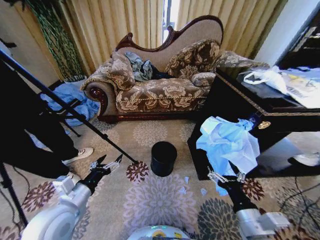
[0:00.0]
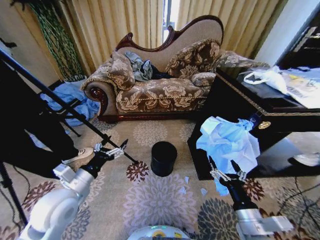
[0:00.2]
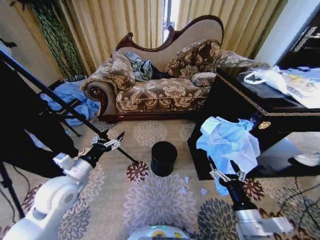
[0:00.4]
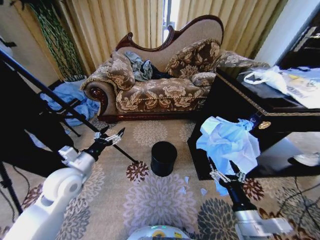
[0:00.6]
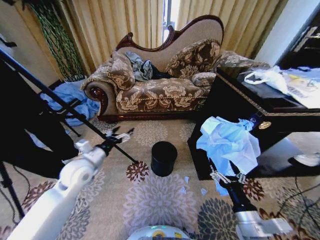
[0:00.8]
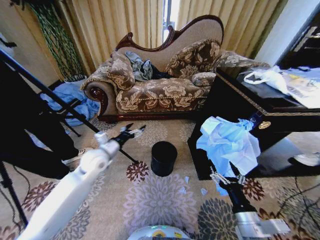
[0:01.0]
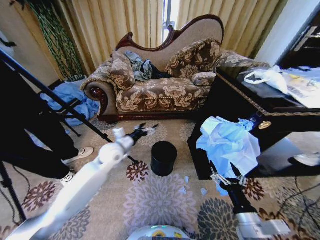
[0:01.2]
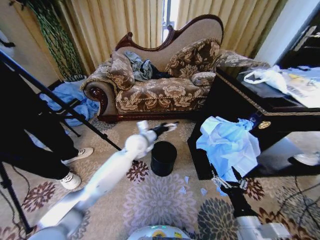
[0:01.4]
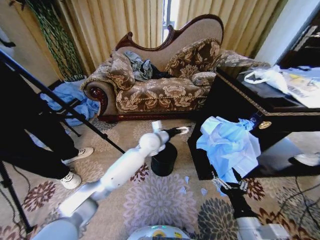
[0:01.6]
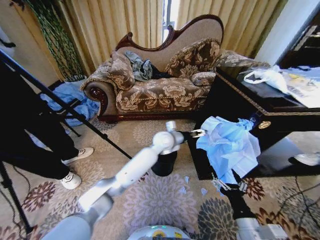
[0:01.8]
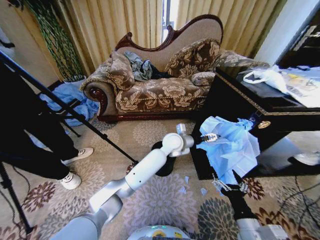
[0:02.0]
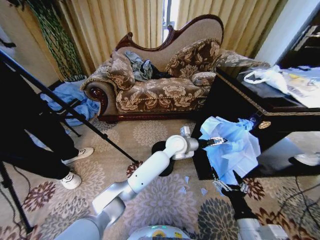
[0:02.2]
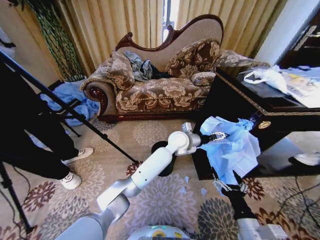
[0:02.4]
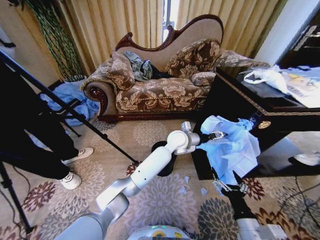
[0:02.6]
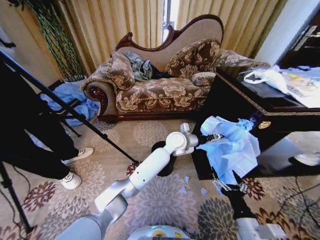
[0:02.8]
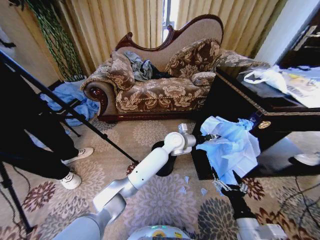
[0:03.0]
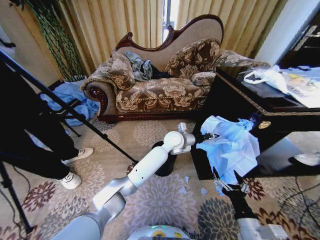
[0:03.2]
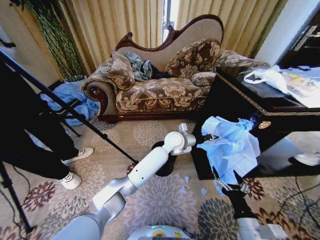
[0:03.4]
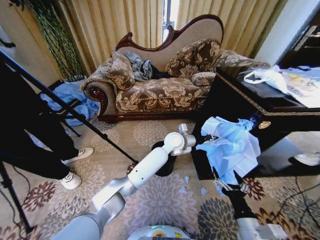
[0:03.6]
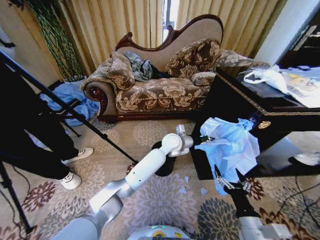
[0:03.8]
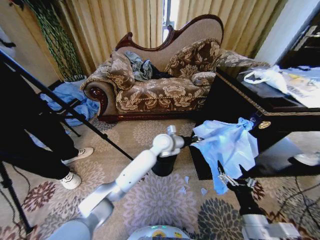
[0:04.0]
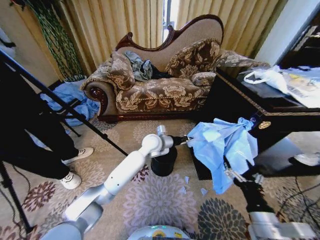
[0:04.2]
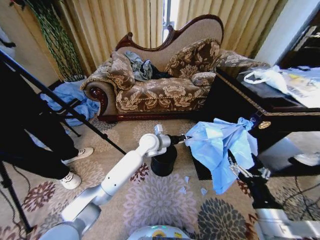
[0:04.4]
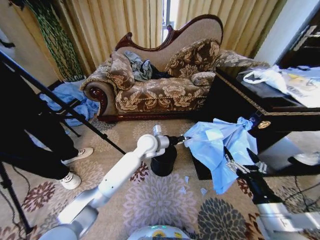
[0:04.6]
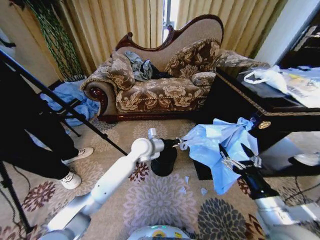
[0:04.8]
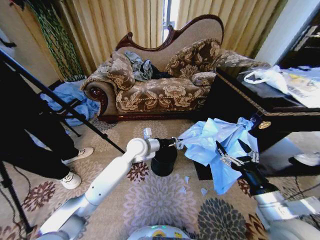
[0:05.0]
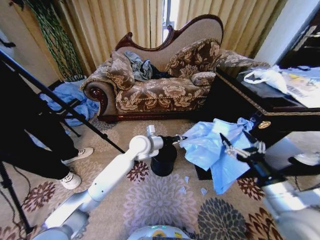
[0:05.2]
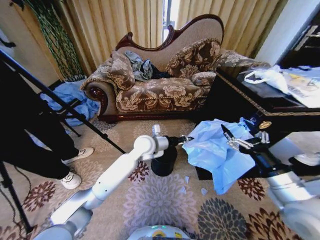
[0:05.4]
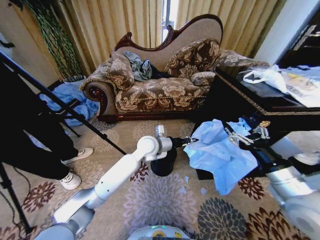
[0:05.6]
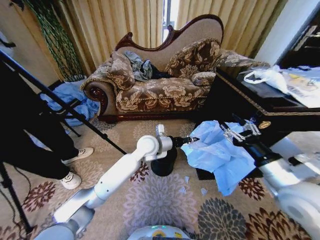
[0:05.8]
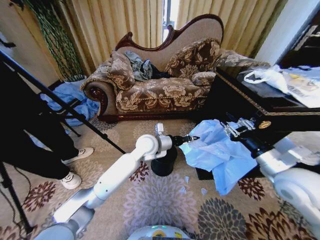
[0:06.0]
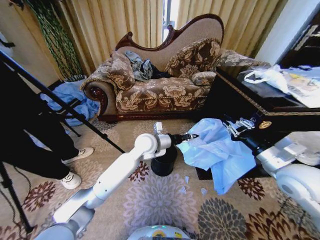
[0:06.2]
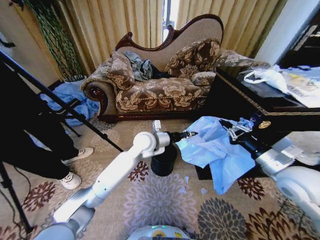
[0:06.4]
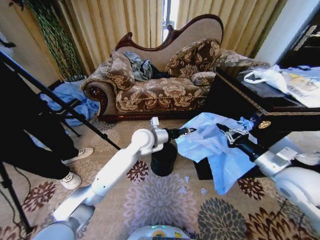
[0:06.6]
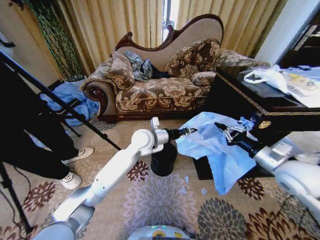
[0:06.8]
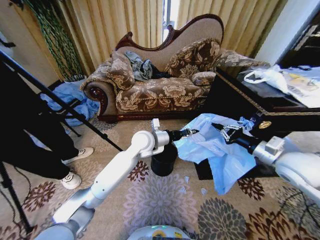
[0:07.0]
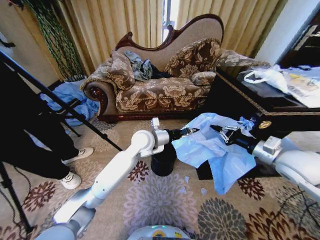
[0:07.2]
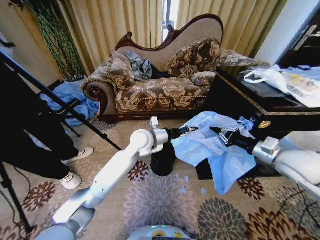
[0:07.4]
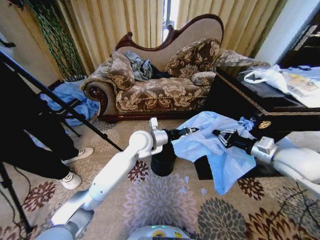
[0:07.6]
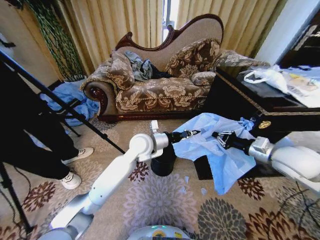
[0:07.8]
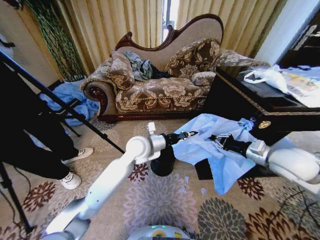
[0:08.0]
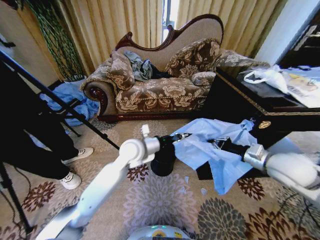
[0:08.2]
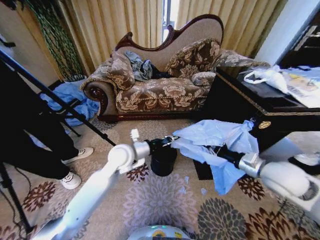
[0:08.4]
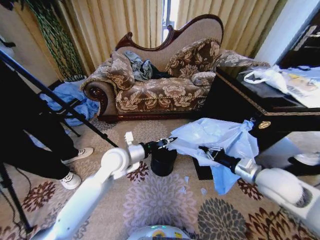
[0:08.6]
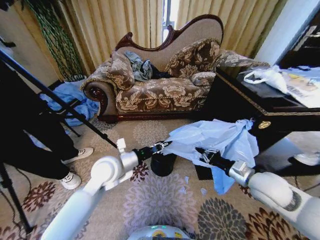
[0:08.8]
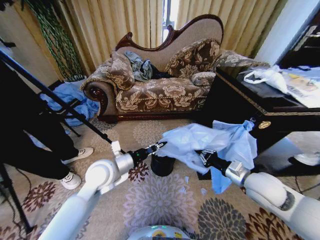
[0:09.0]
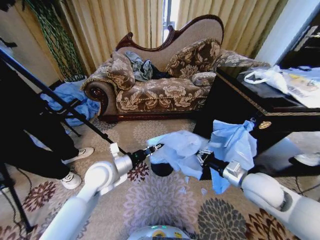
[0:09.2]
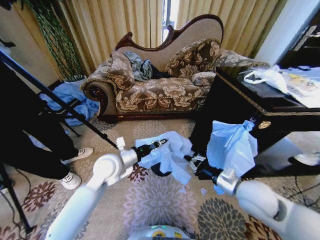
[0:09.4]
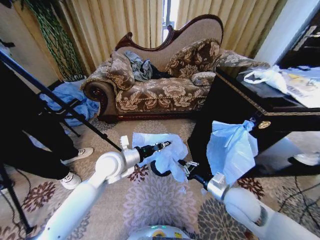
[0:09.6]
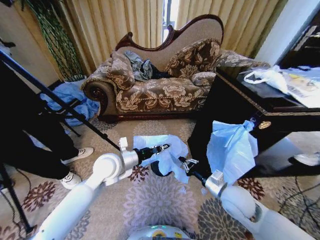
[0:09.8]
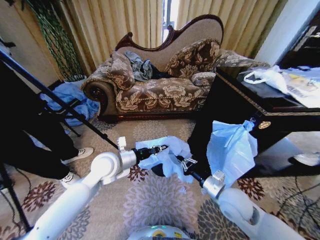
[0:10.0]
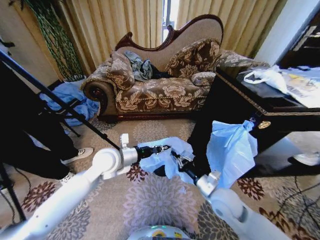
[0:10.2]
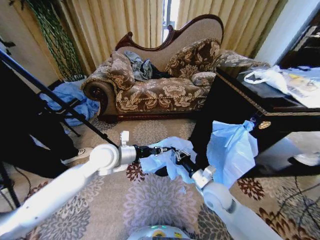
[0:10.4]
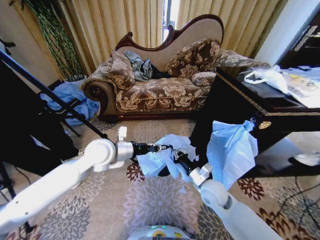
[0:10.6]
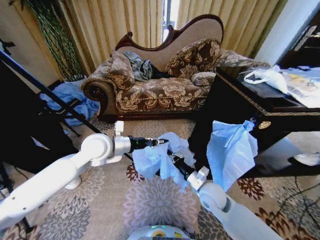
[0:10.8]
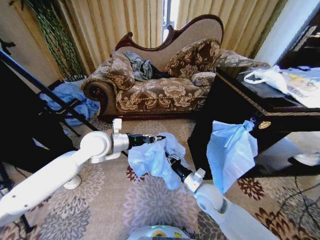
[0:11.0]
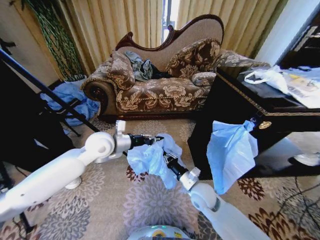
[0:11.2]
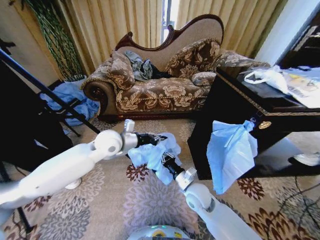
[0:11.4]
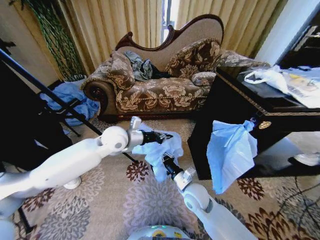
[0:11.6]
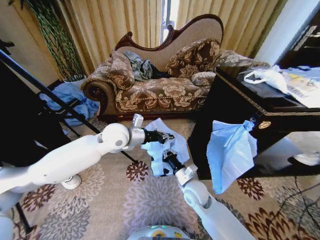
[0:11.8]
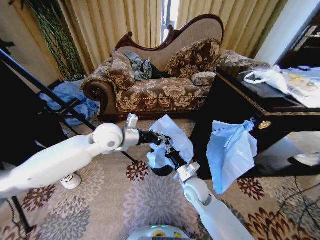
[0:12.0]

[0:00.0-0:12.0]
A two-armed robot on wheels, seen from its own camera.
Task of the whole recording: Place a garbage bag over the trash bin.
1.6 to 3.0 s: The left gripper heads to the right, covering approximately 10 cm, and closes its fingers.
3.0 to 4.4 s: The right gripper goes about 10 cm upward, while the left gripper heads to the left, covering about 10 cm, and closes up.
4.4 to 6.0 s: The right gripper shifts some 20 cm forward, upward and to the right, and closes up.
6.0 to 7.6 s: The right gripper moves forward, approximately 5 cm, and closes up.
7.6 to 9.0 s: The right gripper moves downward and to the left, approximately 10 cm. Meanwhile the left gripper shifts approximately 15 cm to the left and backward.
9.0 to 10.4 s: The right gripper is displaced to the left and downward by approximately 15 cm; the left gripper moves some 5 cm.
10.4 to 12.0 s: The left gripper goes approximately 5 cm upward. The right gripper goes about 5 cm to the left.

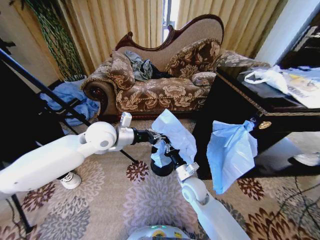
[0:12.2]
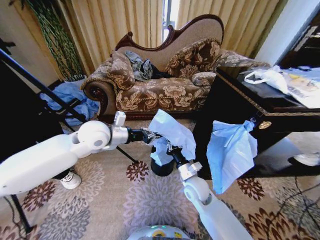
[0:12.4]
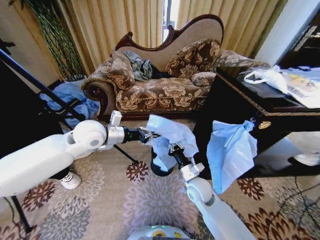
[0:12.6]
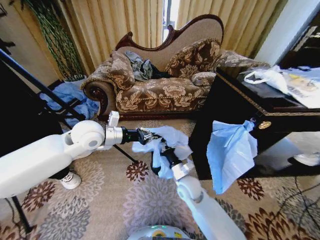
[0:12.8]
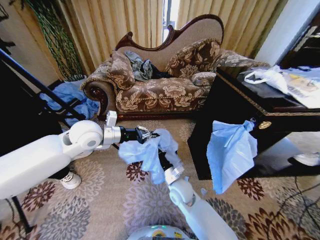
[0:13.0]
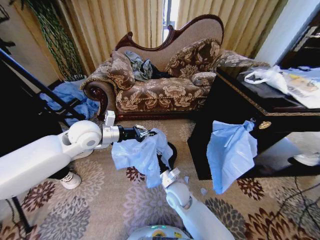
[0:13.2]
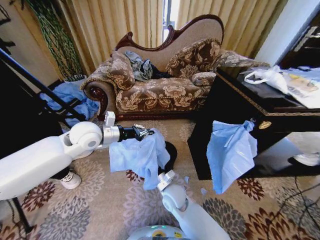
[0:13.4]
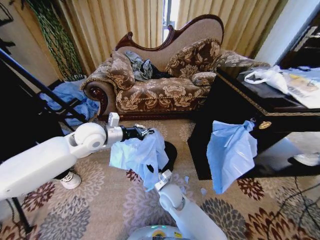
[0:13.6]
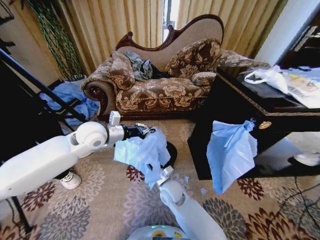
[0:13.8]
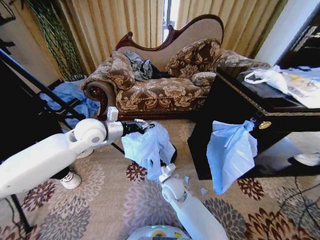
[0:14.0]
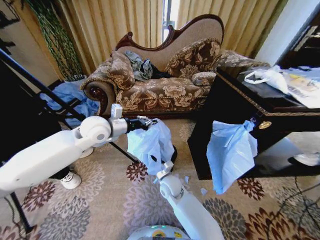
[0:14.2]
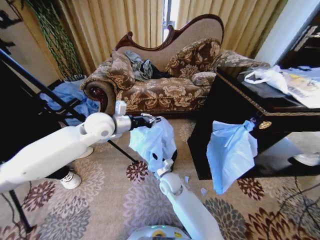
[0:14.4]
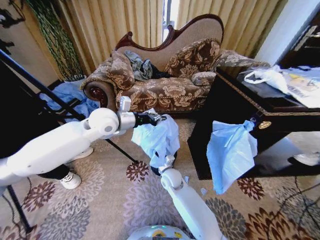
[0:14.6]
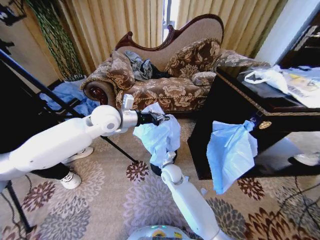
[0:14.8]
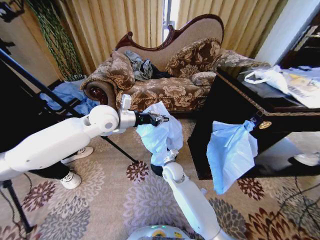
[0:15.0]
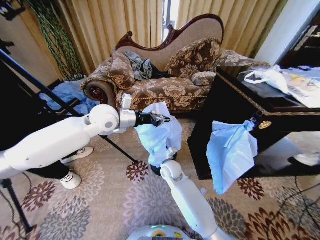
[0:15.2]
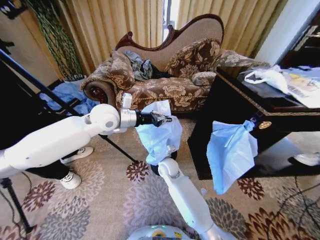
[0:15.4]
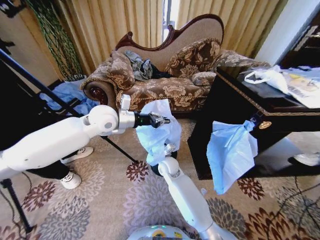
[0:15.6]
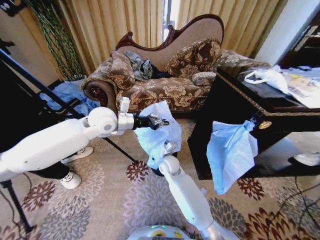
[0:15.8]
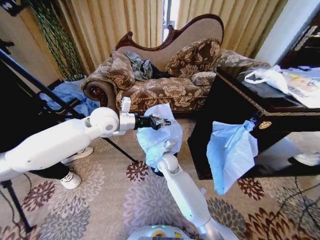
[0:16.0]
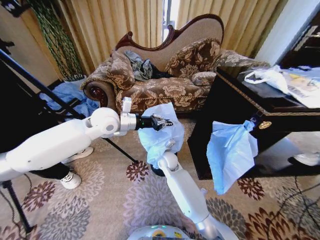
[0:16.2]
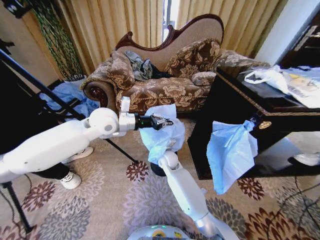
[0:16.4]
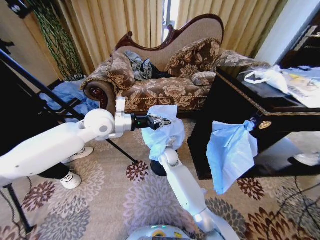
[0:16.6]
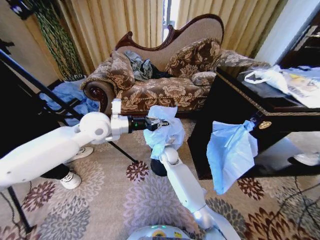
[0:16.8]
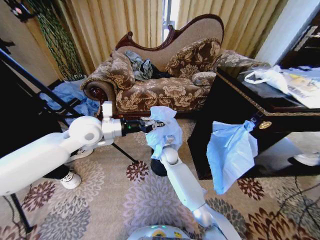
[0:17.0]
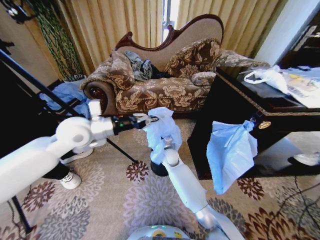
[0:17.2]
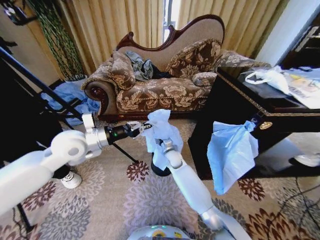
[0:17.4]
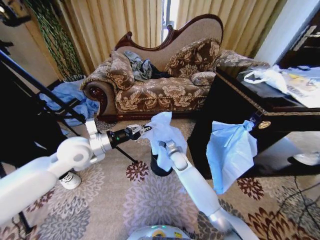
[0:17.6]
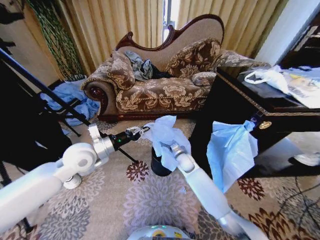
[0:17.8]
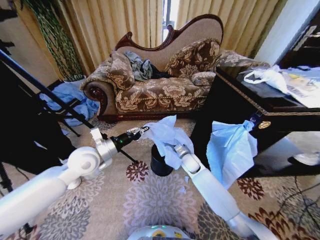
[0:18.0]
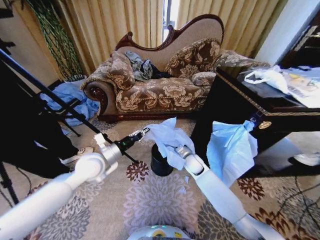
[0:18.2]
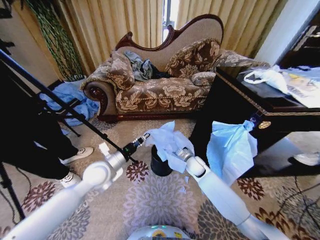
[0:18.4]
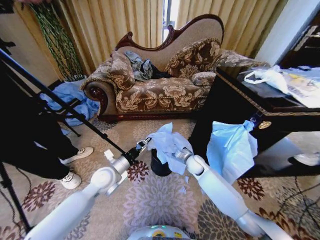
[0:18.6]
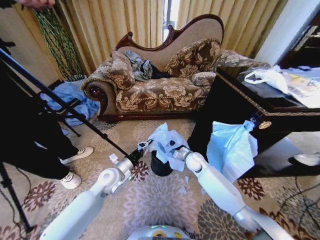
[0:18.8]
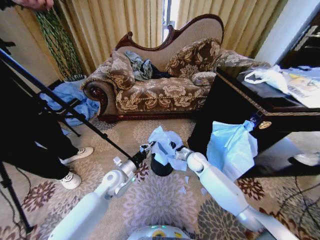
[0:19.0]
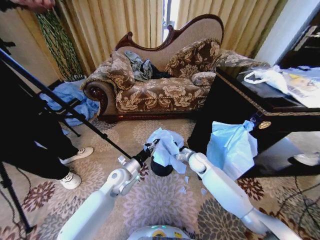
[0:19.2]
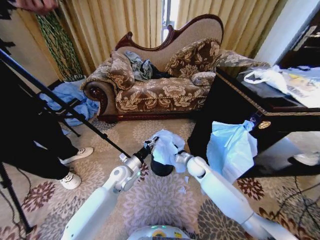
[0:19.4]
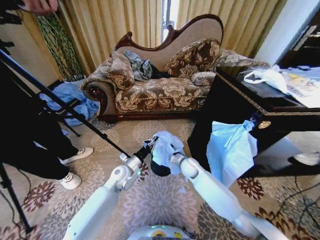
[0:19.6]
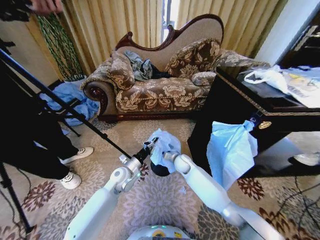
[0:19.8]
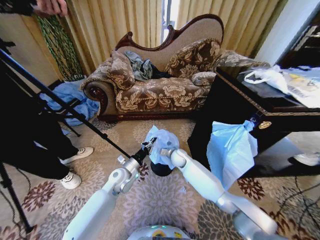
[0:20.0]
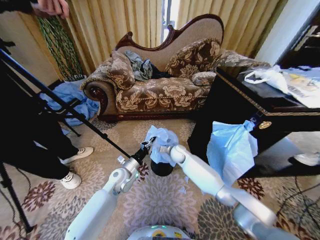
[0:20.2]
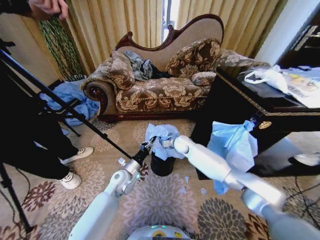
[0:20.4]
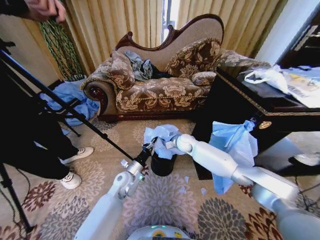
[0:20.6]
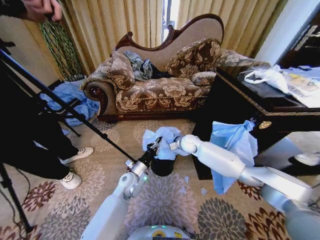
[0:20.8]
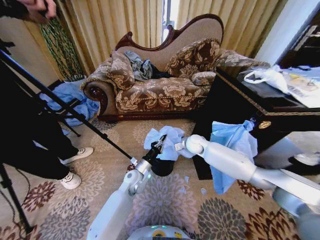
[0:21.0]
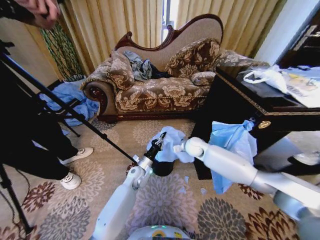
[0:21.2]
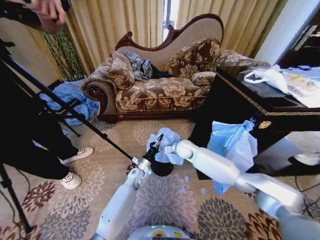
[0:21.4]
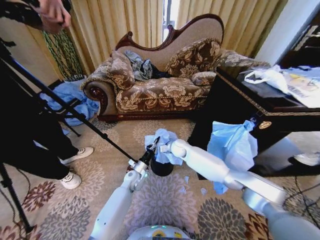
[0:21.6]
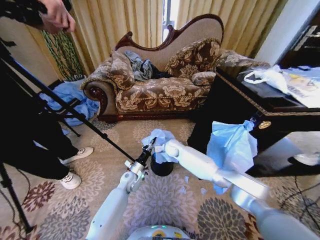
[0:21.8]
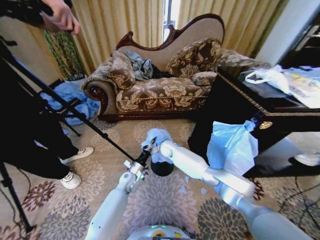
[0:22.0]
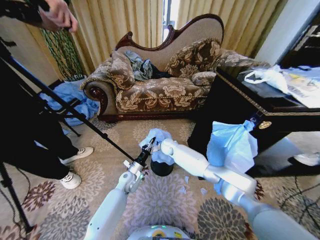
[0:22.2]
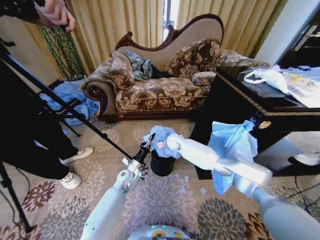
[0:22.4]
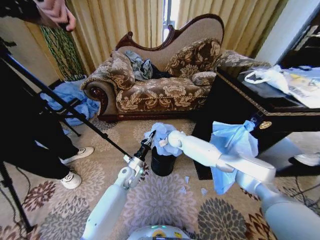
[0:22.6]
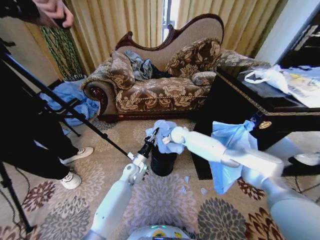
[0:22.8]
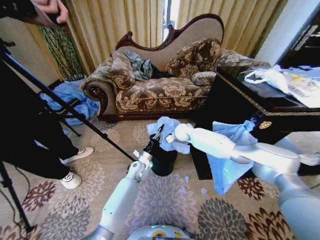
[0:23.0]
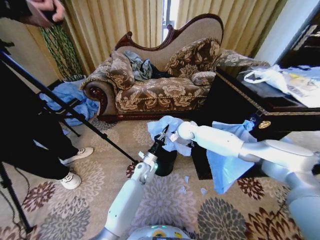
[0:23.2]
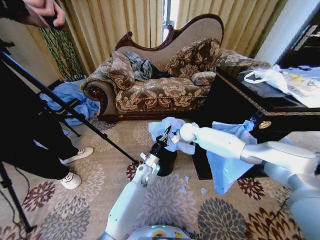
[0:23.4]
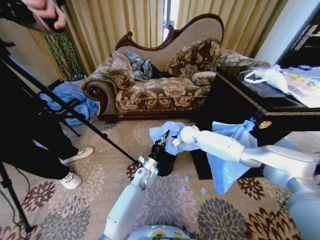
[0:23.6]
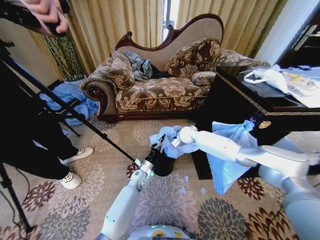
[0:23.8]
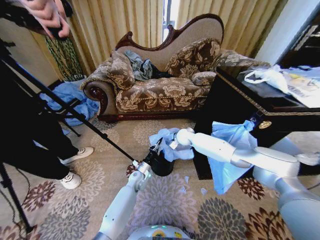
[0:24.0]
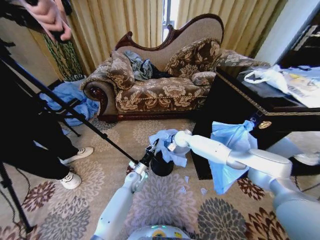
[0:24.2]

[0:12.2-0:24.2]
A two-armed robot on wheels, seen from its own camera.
Task of the whole recording: Place a garbage bag over the trash bin.
12.2 to 13.8 s: The right gripper goes roughly 10 cm to the left.
13.8 to 15.2 s: The left gripper changes place by approximately 10 cm, while the right gripper travels forward by some 10 cm.
15.2 to 16.6 s: The right gripper is displaced forward by some 5 cm.
16.6 to 18.2 s: The right gripper moves to the right, about 15 cm. The left gripper goes approximately 15 cm downward and backward.
18.2 to 19.8 s: The right gripper shifts roughly 5 cm to the left; the left gripper travels downward and to the right by approximately 15 cm.
19.8 to 21.2 s: The left gripper moves to the right, some 5 cm; the right gripper heads upward and to the right, covering some 10 cm.
21.2 to 22.6 s: The right gripper goes approximately 10 cm to the left and forward.
22.6 to 24.2 s: The left gripper moves downward, roughly 5 cm, and moves about 10 cm to the right and comes back.
